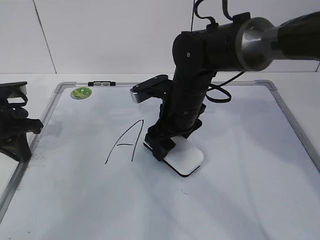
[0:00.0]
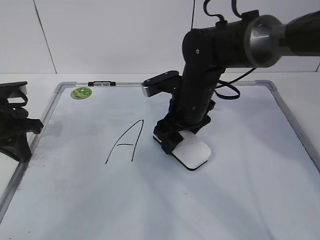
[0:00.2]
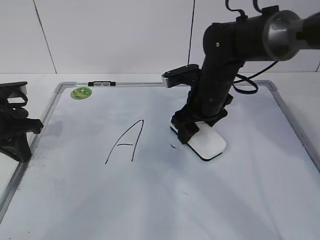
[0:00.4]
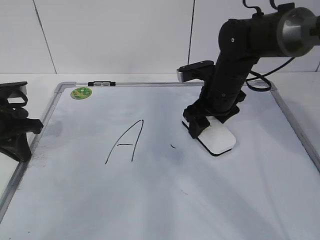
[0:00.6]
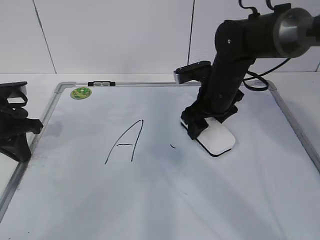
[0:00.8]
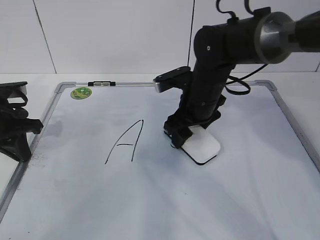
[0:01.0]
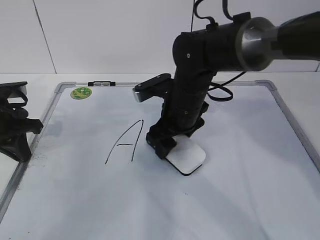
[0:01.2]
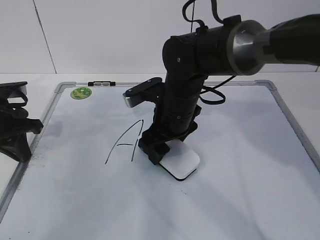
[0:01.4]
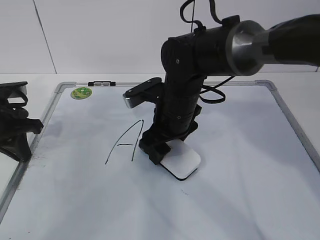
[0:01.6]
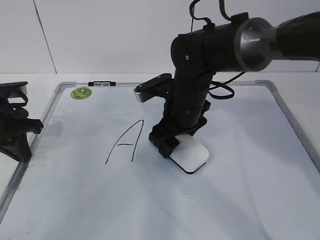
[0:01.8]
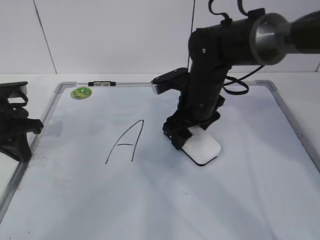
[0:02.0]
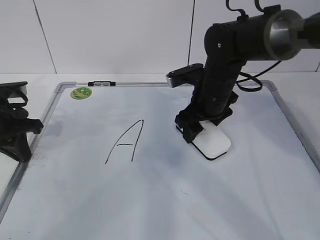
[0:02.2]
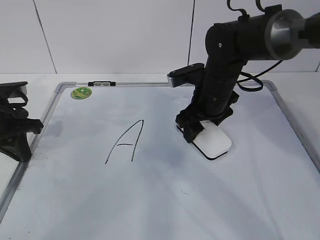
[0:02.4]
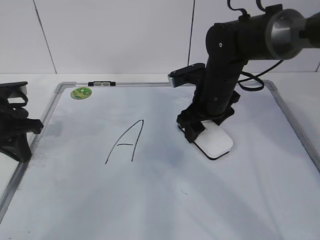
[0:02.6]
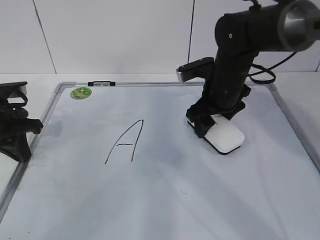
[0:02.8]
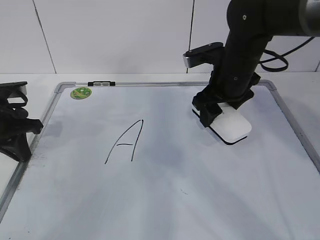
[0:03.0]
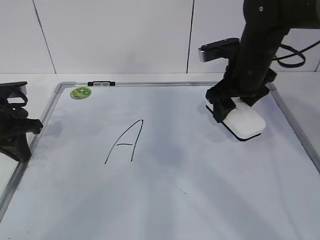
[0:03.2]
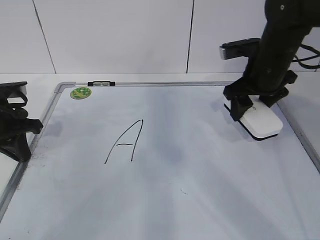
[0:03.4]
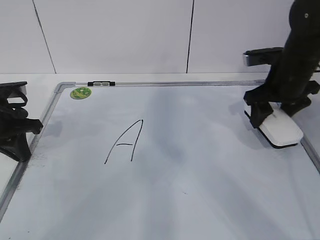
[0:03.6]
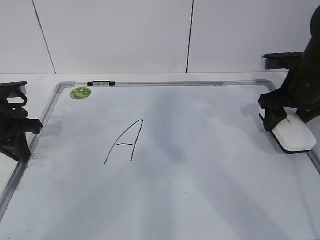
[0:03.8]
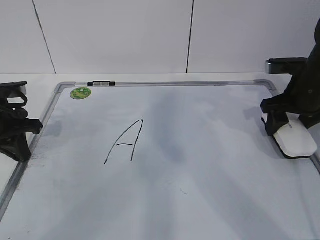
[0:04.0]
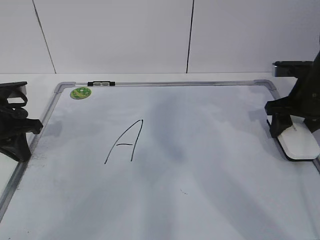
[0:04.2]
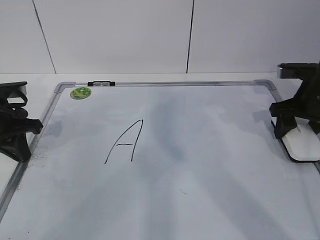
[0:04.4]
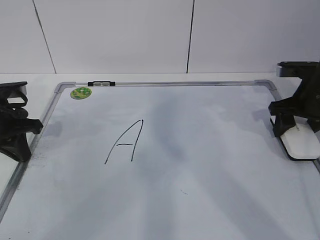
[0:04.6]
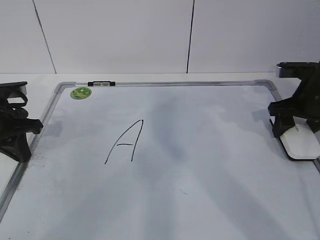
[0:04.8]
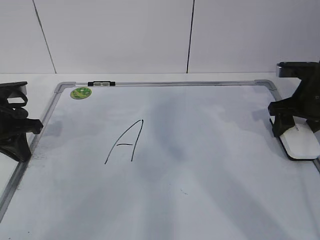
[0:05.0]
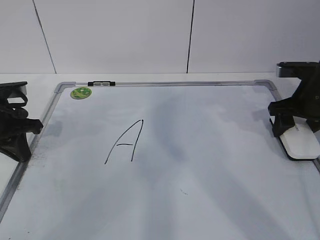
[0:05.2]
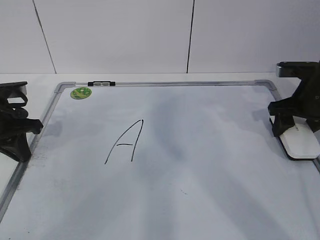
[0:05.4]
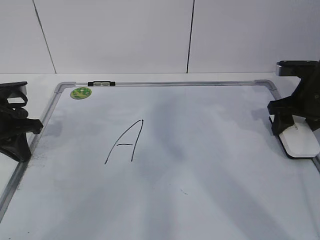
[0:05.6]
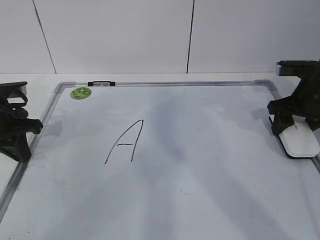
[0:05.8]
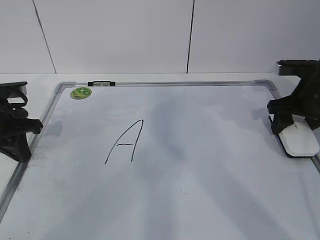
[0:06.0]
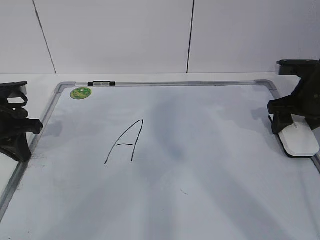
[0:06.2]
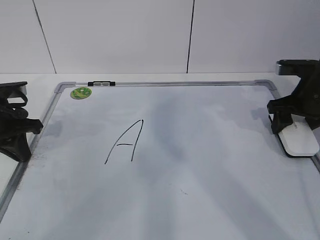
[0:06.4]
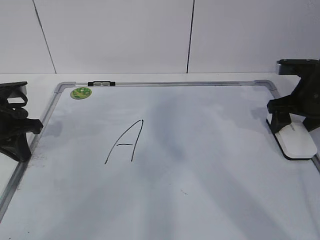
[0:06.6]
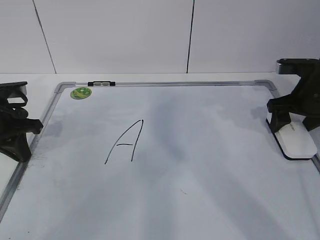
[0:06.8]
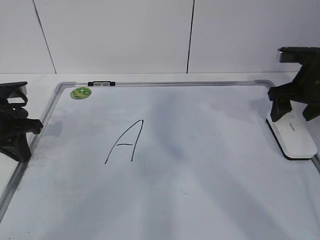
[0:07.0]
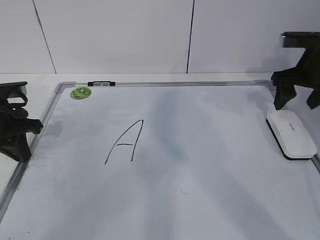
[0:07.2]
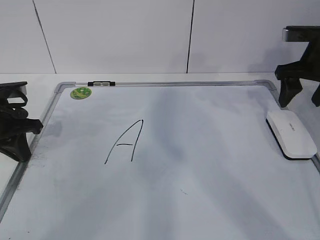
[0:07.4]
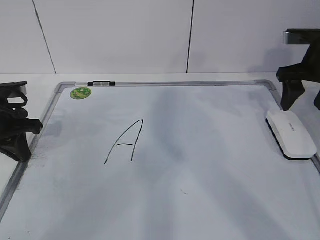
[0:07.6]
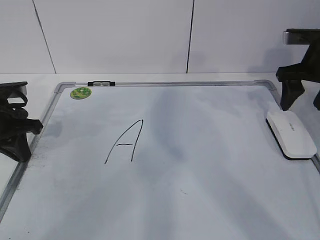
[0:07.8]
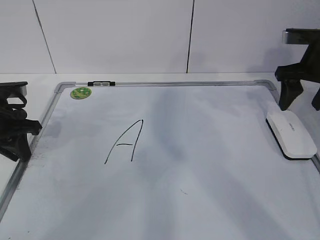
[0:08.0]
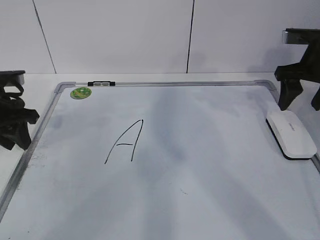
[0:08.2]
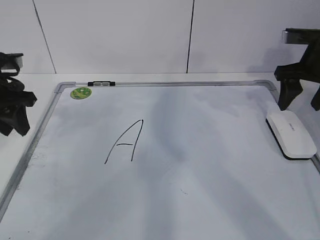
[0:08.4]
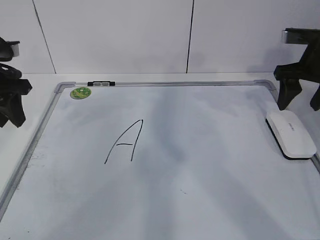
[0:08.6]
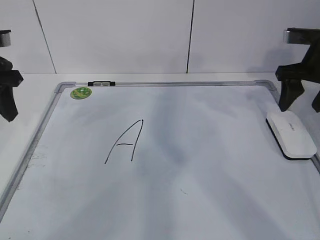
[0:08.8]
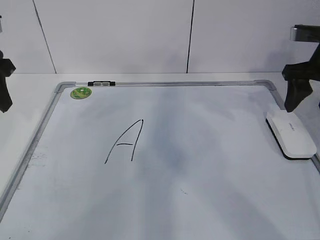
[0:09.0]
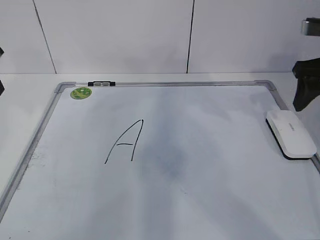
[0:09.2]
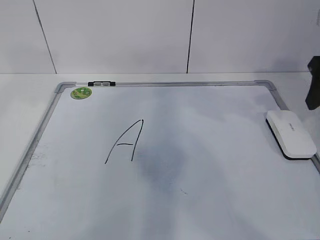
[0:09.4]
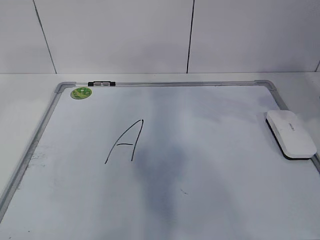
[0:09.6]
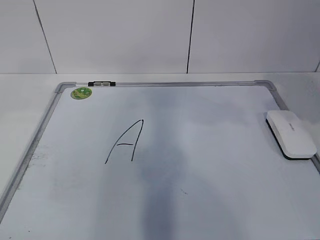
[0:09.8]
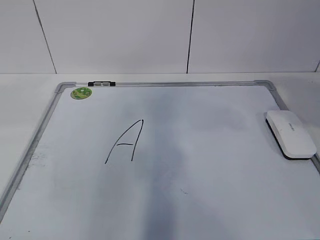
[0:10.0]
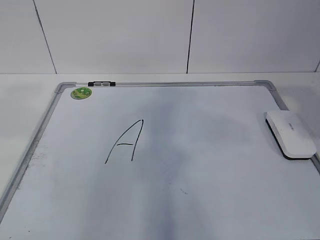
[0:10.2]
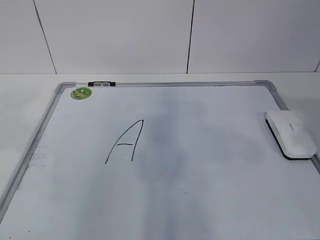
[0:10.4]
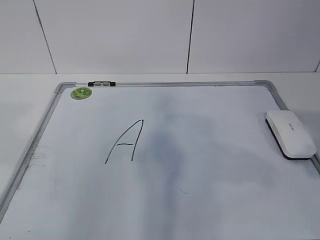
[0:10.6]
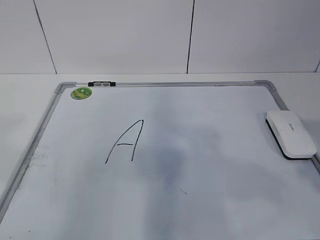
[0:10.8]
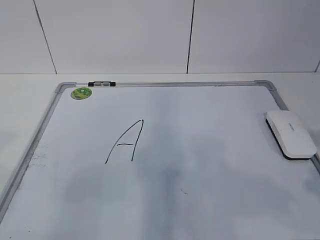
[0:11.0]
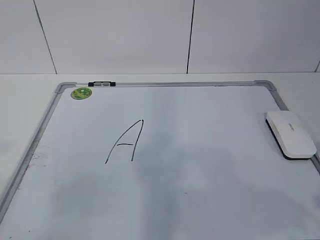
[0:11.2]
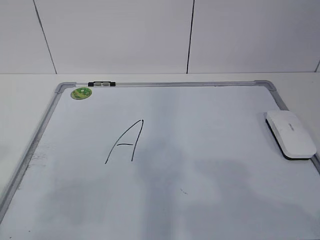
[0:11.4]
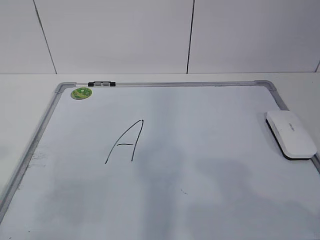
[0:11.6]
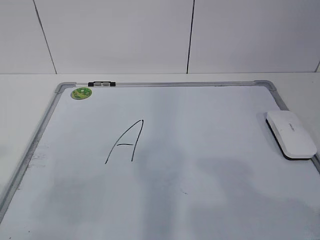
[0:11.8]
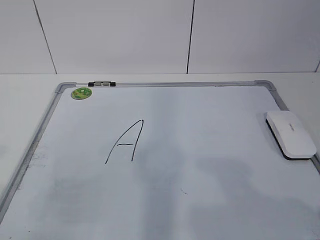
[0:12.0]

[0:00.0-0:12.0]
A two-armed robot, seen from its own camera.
Task of the whole recording: pick up the eraser on the blackboard and erase the letter "a".
Step, 0:00.0 to 0:02.0: Put down the eraser with your right hand.
0:00.0 to 0:01.6: The right gripper reaches roughly 10 cm to the right, then returns.
0:01.6 to 0:03.0: The right gripper moves to the right, approximately 10 cm.
0:03.0 to 0:04.4: The right gripper is displaced to the right by about 15 cm.
0:04.4 to 0:06.0: The two grippers keep their place.
0:06.0 to 0:07.6: The right gripper shifts about 5 cm upward.
0:07.6 to 0:09.0: The left gripper shifts some 15 cm upward, and opens its fingers.
0:09.0 to 0:10.4: The right gripper travels backward by approximately 25 cm; the left gripper is displaced backward and upward by roughly 25 cm, and opens.

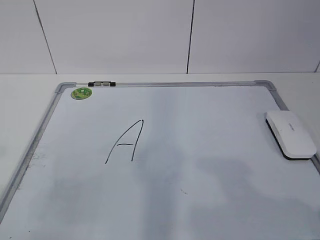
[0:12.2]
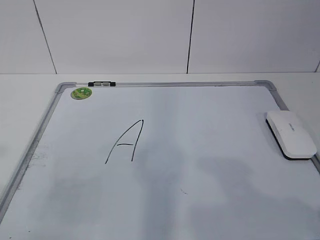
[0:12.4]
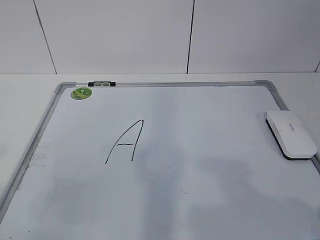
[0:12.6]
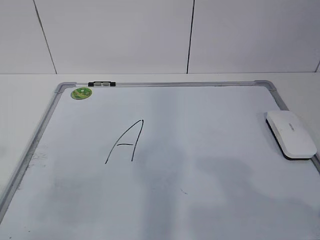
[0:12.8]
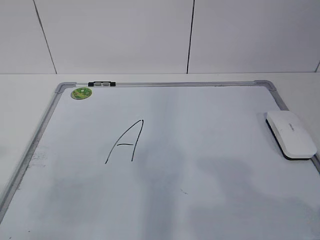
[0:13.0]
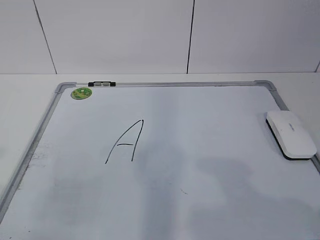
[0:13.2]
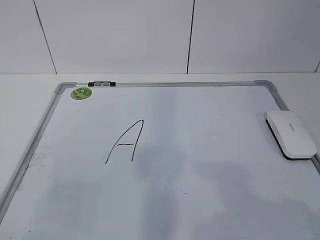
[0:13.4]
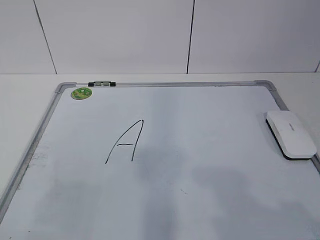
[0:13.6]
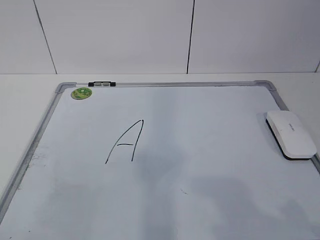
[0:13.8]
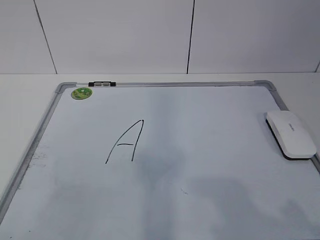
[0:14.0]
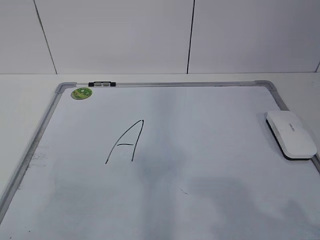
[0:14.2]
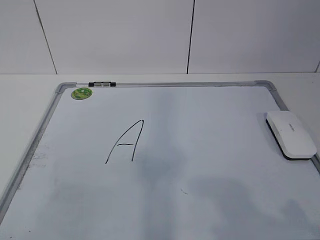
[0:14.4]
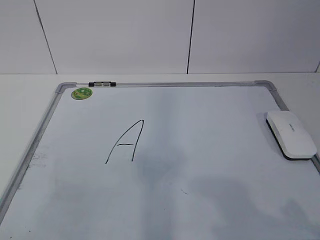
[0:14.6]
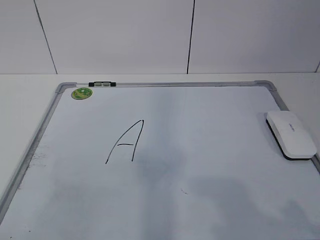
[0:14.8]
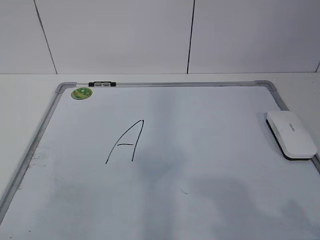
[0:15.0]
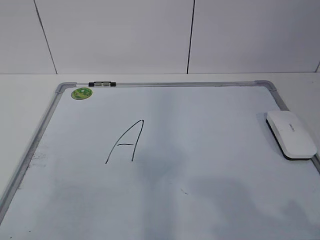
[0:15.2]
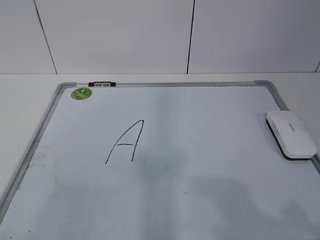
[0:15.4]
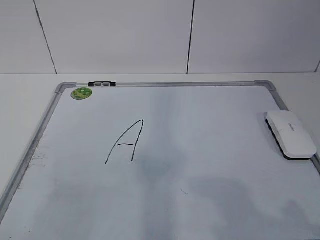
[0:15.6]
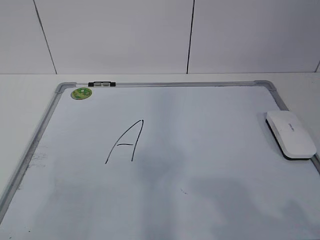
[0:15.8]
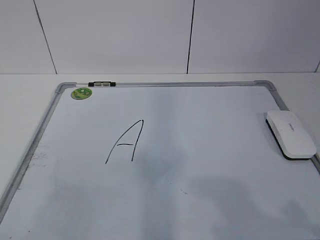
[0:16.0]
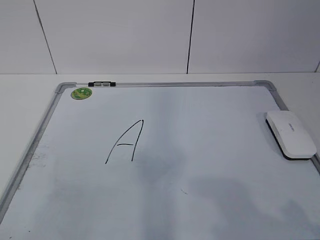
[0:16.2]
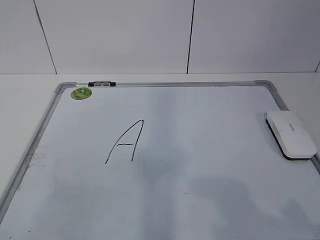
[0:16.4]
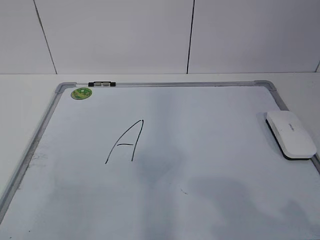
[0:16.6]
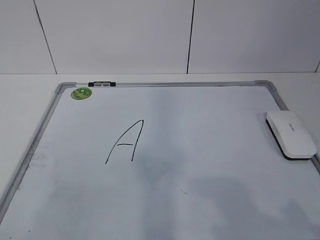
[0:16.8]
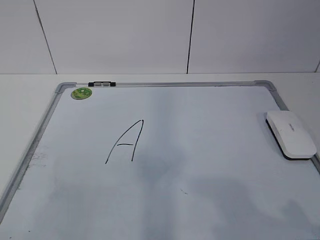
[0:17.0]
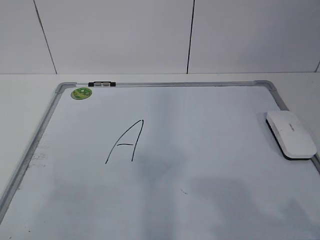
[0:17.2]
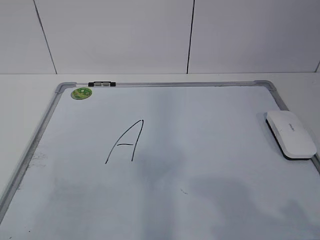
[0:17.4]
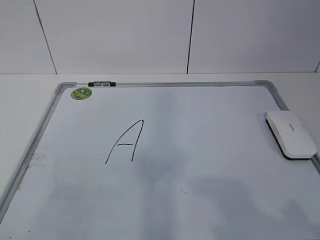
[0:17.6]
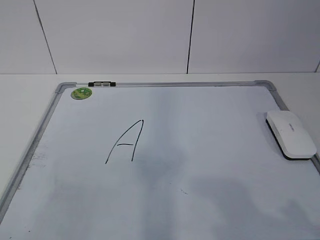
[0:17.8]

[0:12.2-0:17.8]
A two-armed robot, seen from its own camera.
Task of the whole recording: pick up the eraser on the blackboard and erase the letter "a".
0:15.0 to 0:17.8: Neither gripper changes place.

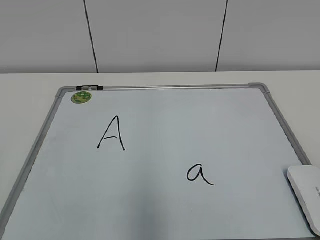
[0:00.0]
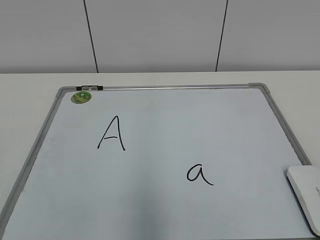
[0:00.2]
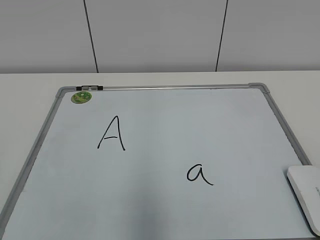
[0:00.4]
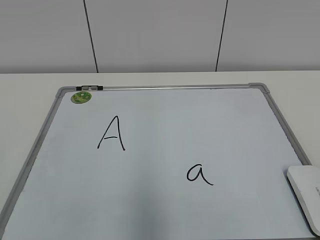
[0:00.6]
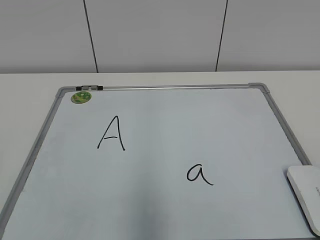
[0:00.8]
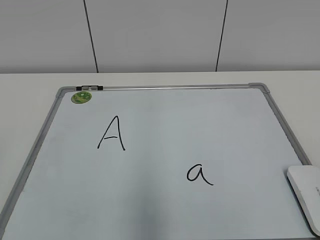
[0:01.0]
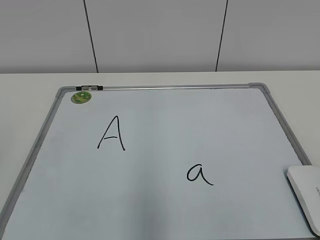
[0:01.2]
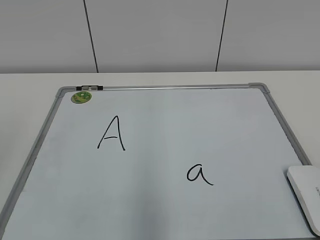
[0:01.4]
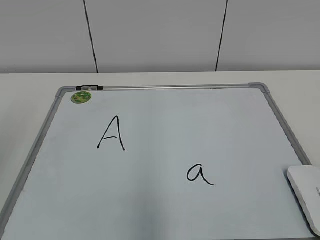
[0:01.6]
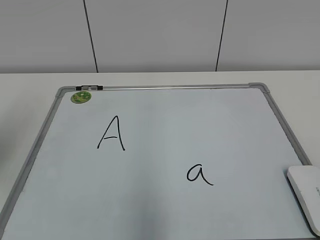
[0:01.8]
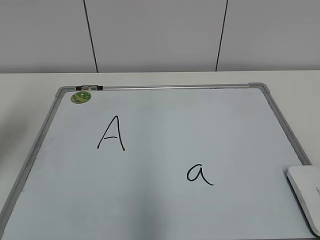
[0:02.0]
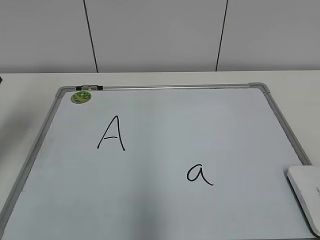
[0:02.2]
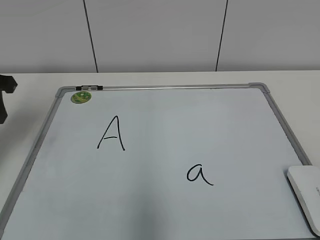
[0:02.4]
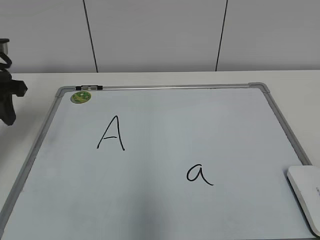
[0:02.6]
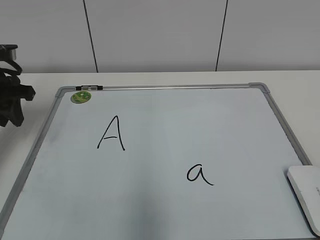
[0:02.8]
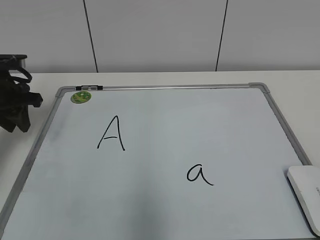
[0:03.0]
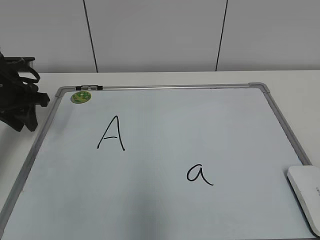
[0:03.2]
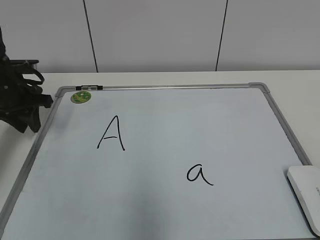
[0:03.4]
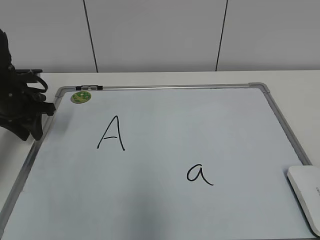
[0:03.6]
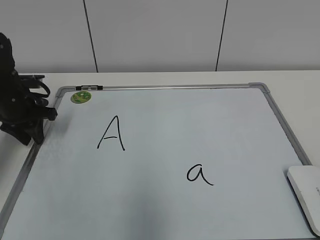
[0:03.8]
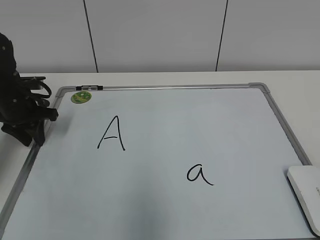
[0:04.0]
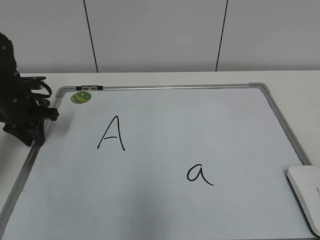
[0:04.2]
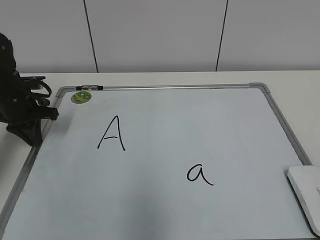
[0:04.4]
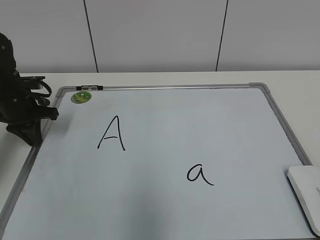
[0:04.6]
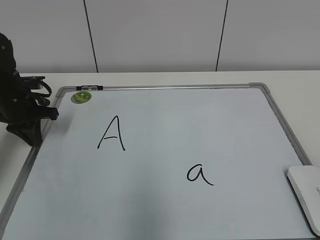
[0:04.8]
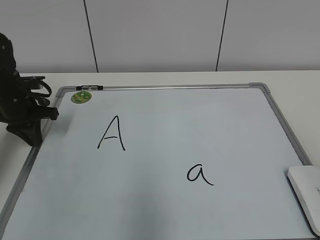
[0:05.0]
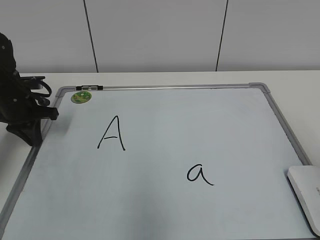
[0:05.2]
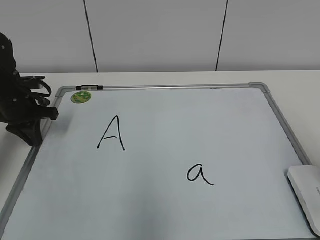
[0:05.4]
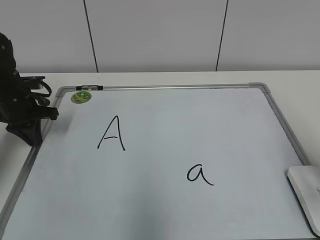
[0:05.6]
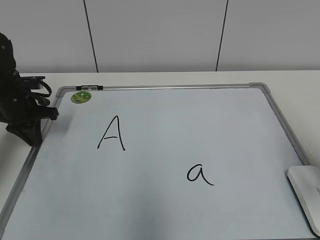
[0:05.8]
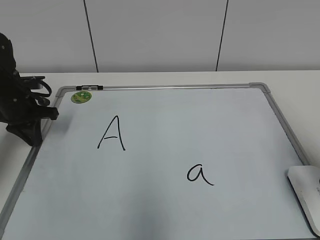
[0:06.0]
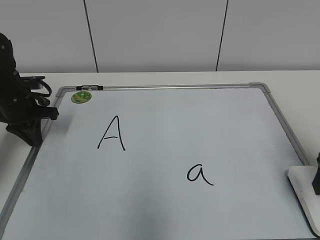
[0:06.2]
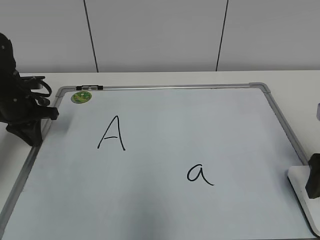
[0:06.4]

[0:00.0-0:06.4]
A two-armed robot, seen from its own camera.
Task of the whole recording: pick up the eraser on the blackboard and erase the letter "a".
Step, 0:00.0 to 0:03.4: Hold the drawing board steady with your left hand.
0:01.6 to 0:03.2: The left gripper travels forward and downward by some 30 cm.
0:03.2 to 0:04.8: The left gripper closes its fingers.
0:04.8 to 0:06.4: The right gripper goes approximately 20 cm forward, and opens.
